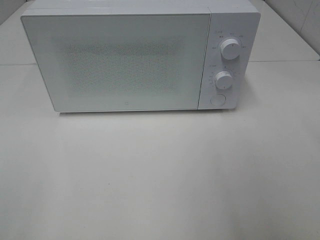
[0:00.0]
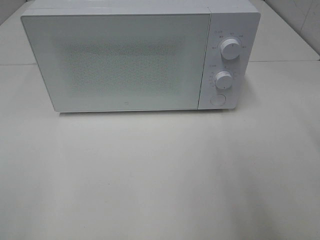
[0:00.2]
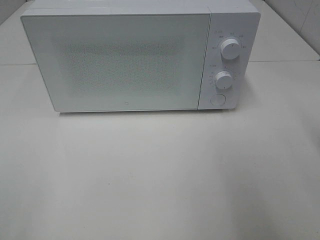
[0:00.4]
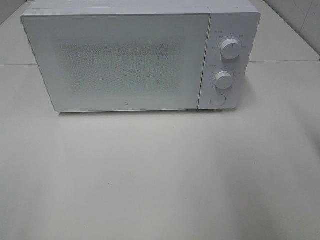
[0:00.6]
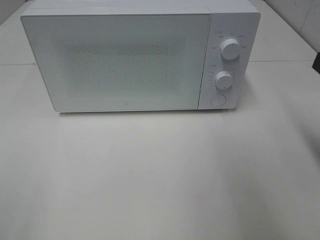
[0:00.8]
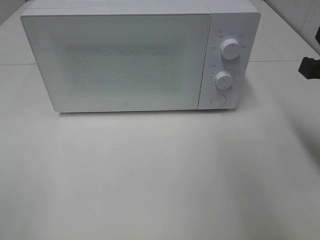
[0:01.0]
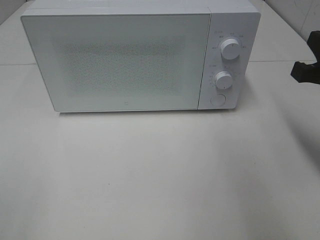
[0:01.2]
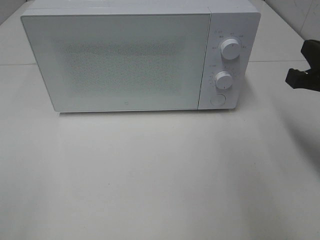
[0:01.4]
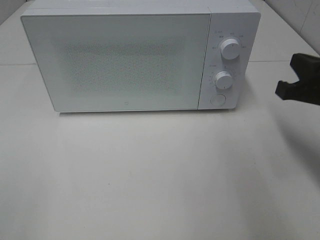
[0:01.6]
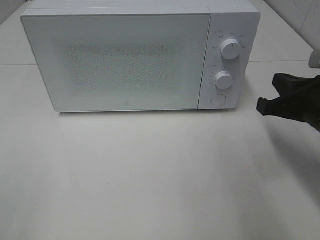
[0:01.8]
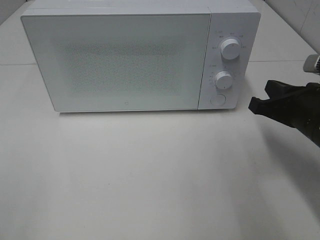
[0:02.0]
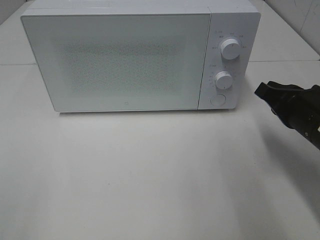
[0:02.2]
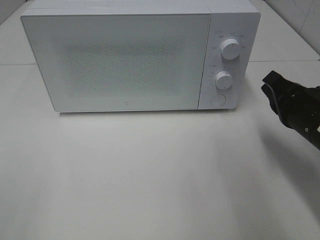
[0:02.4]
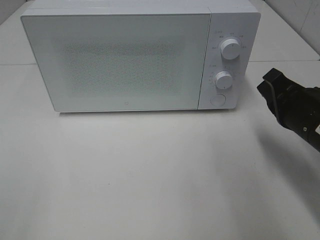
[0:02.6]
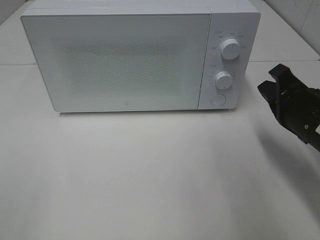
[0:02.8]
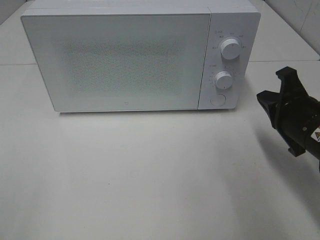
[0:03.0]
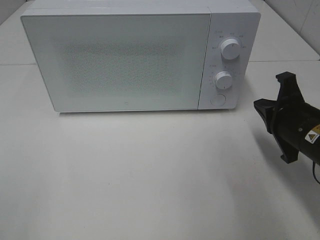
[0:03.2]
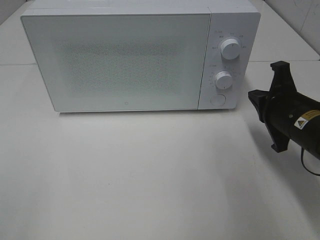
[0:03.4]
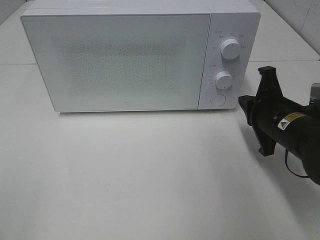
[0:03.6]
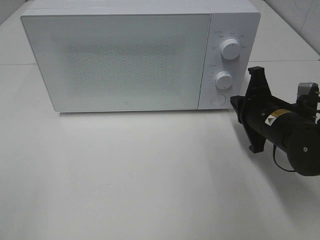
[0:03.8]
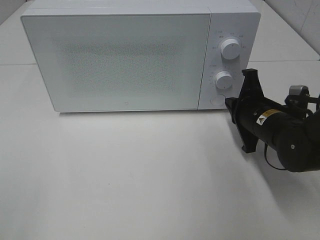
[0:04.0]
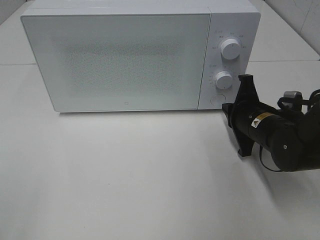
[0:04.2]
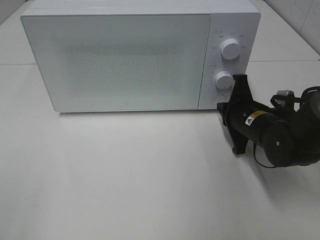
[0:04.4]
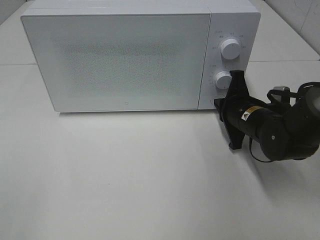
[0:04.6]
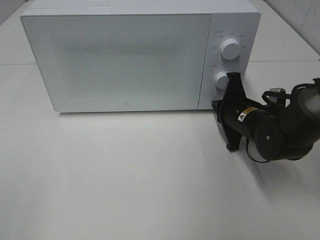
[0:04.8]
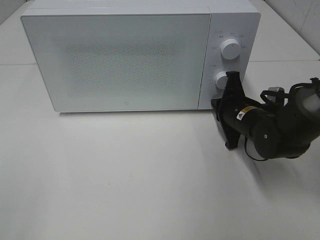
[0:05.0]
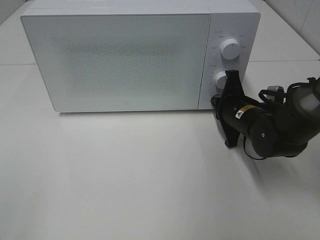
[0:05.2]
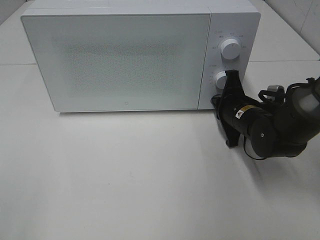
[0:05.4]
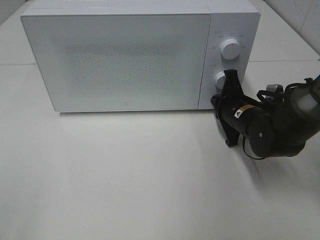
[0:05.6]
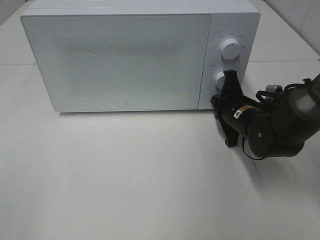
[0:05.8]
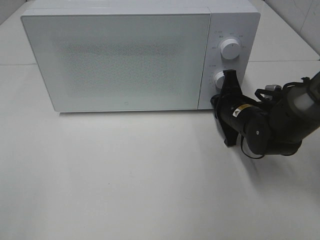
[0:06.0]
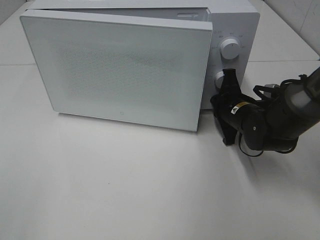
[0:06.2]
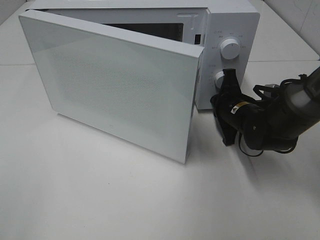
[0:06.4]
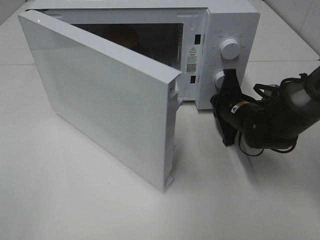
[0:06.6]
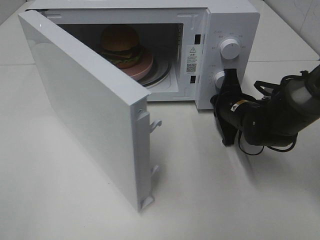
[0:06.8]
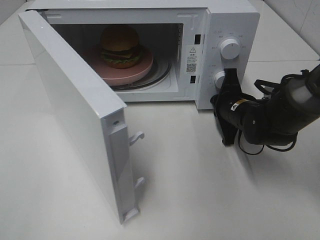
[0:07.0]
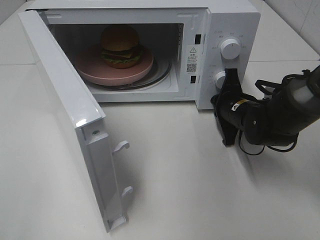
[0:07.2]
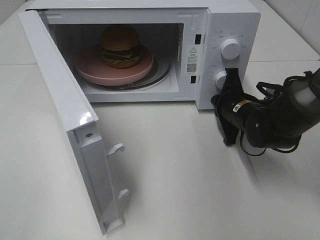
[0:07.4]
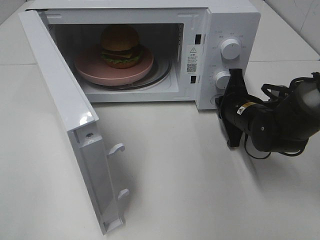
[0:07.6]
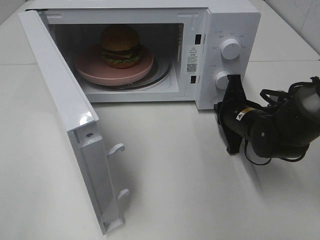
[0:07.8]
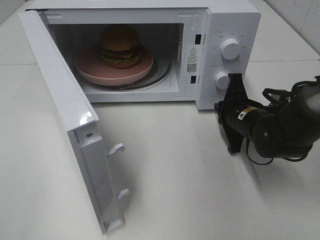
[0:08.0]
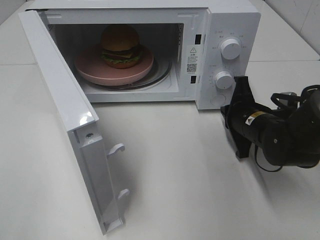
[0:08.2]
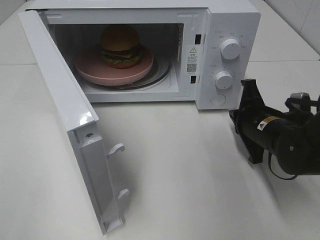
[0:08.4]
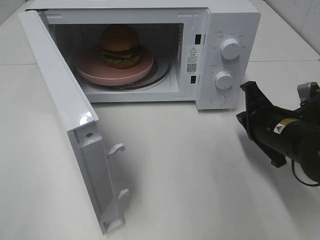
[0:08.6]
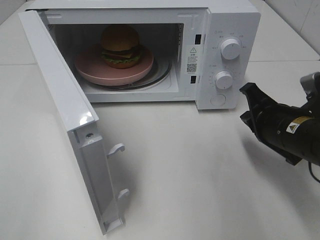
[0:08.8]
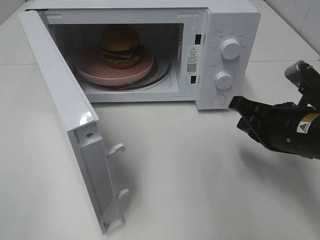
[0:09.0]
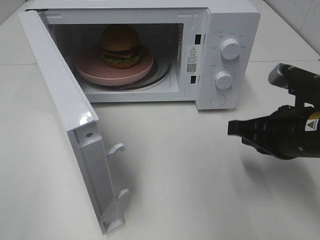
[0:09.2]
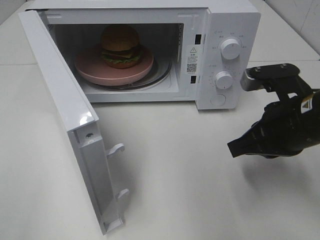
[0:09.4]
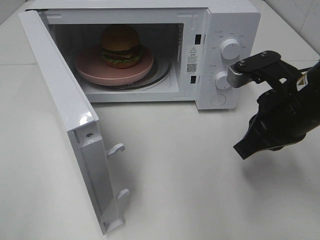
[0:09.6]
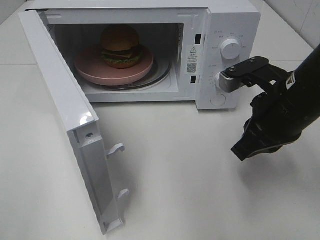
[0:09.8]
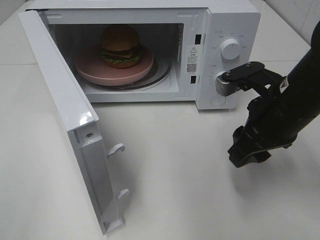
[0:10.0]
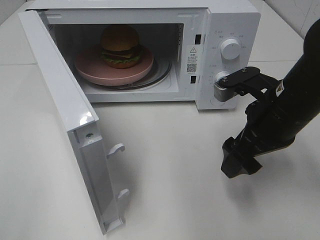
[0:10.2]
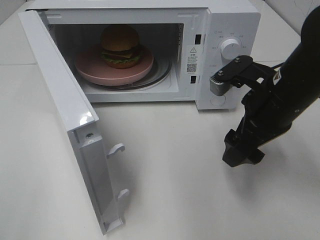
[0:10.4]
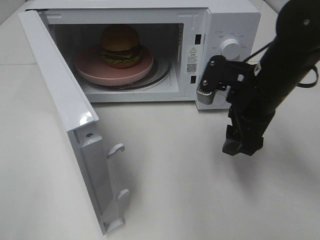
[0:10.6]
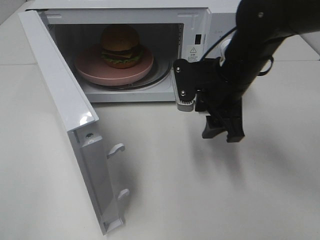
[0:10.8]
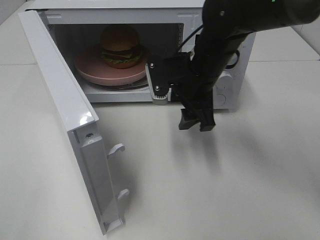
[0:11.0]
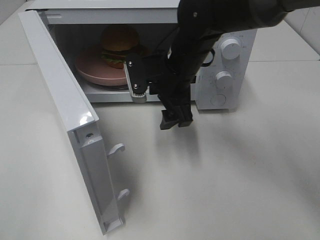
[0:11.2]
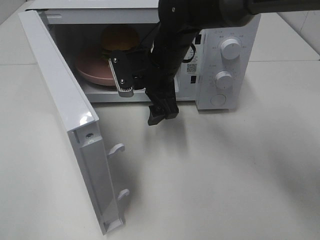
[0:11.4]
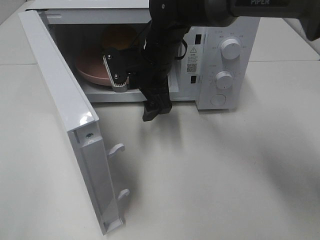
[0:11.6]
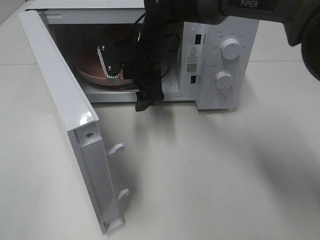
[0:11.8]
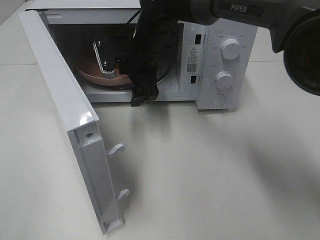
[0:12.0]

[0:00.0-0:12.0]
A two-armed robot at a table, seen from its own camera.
Task of the whole recording: Heat the burger.
Step, 0:00.0 to 0:07.6: Right hand: press the switch.
0:00.0 to 0:01.6: The right gripper moves forward and downward, roughly 20 cm, and closes its fingers.
0:01.6 to 0:03.0: The right gripper changes place by roughly 5 cm.
0:03.0 to 0:04.4: The right gripper is displaced forward, downward and to the left by roughly 10 cm.
0:04.4 to 0:06.0: There are only small adjustments of the grippers.
0:07.6 to 0:09.0: The right gripper heads backward and upward, covering about 15 cm.
0:09.0 to 0:10.4: The right gripper ends up about 5 cm from where it was, and opens.
0:10.4 to 0:12.0: The right gripper goes roughly 25 cm to the left and forward.

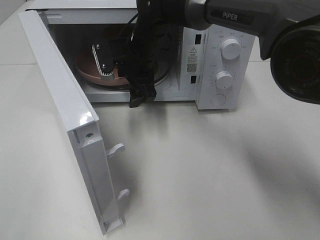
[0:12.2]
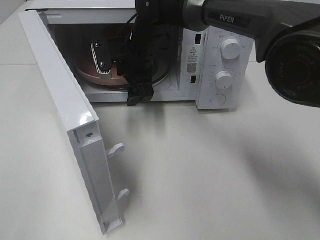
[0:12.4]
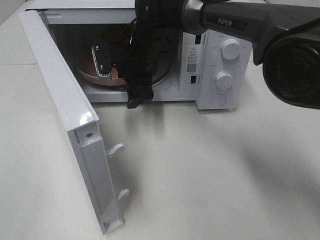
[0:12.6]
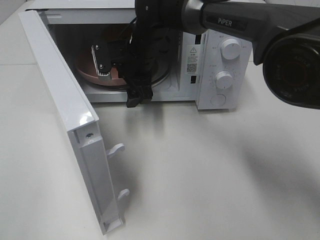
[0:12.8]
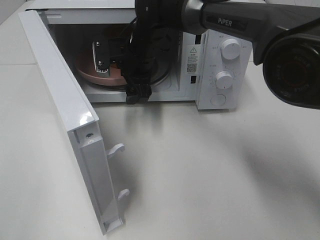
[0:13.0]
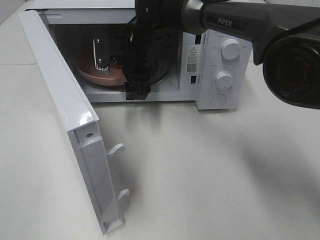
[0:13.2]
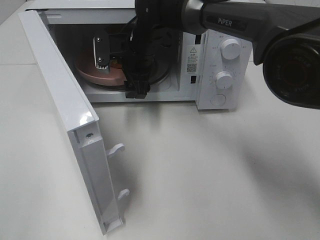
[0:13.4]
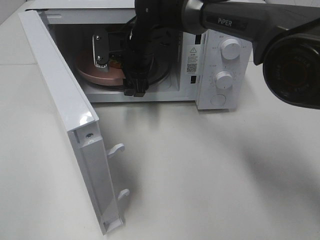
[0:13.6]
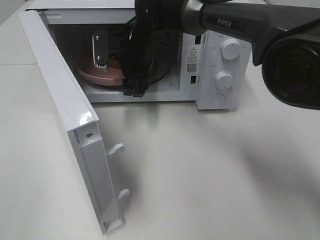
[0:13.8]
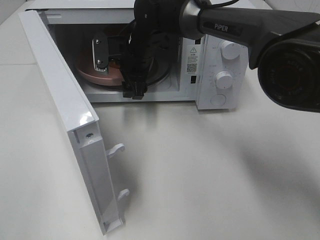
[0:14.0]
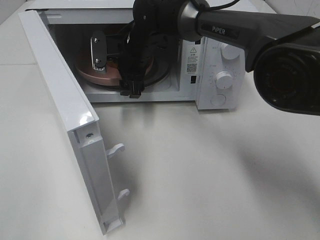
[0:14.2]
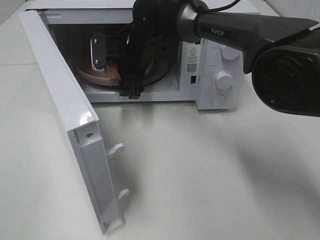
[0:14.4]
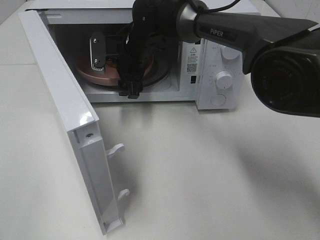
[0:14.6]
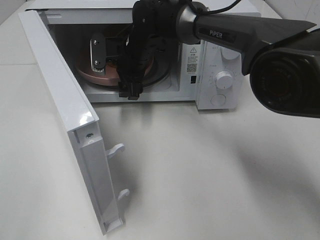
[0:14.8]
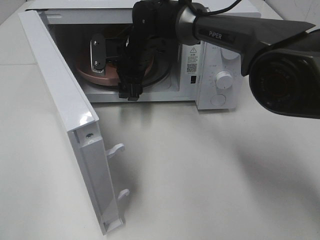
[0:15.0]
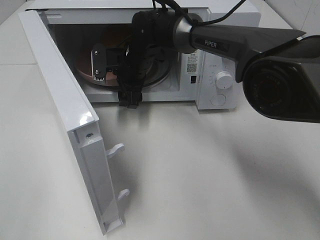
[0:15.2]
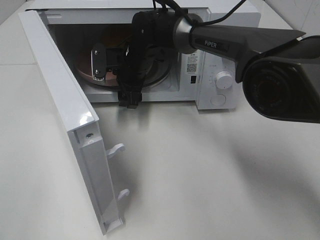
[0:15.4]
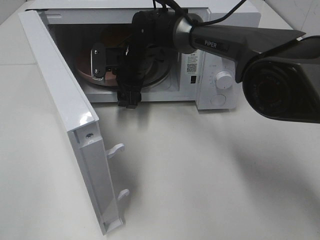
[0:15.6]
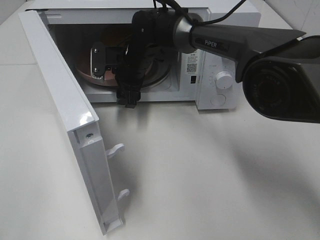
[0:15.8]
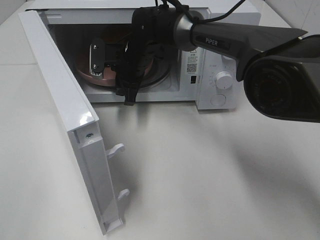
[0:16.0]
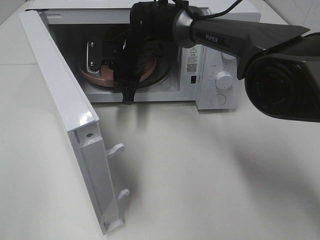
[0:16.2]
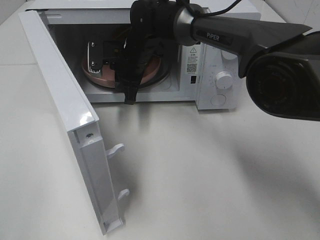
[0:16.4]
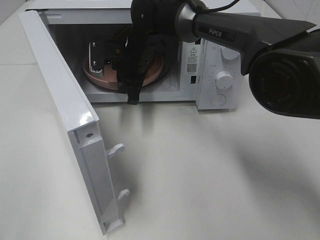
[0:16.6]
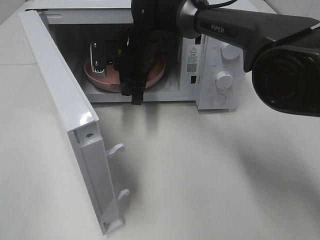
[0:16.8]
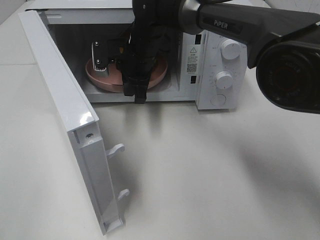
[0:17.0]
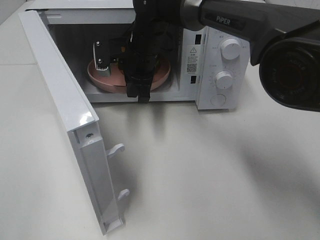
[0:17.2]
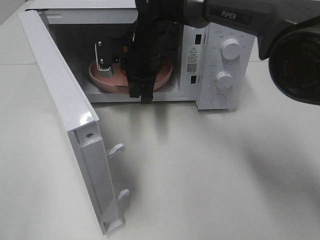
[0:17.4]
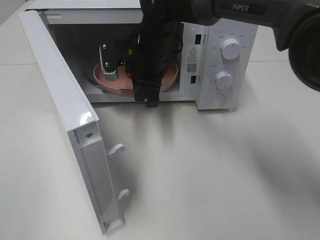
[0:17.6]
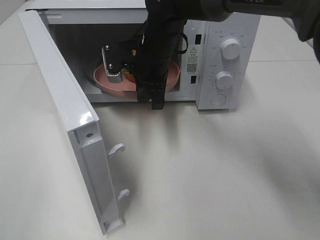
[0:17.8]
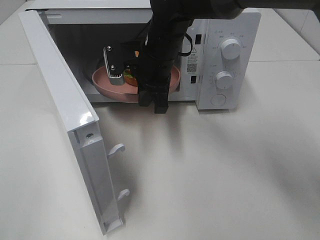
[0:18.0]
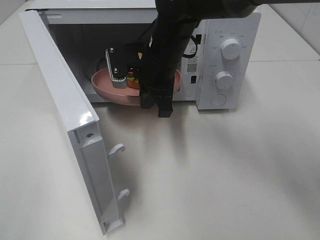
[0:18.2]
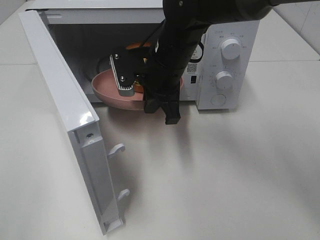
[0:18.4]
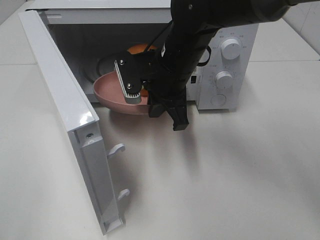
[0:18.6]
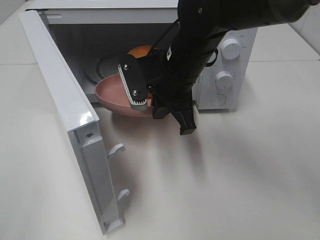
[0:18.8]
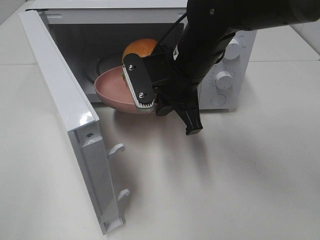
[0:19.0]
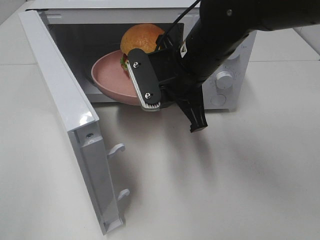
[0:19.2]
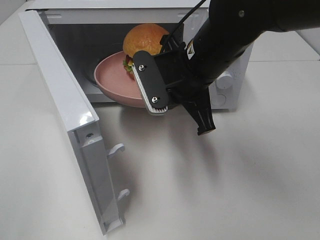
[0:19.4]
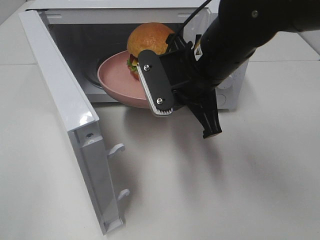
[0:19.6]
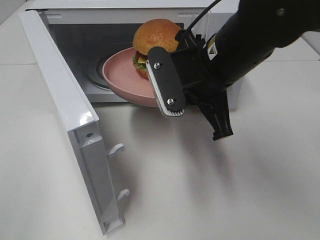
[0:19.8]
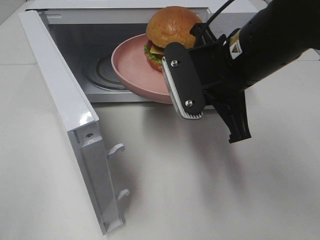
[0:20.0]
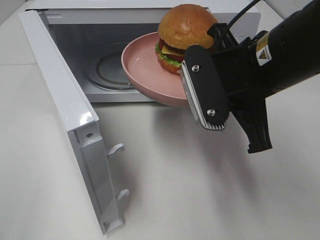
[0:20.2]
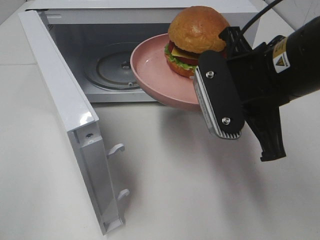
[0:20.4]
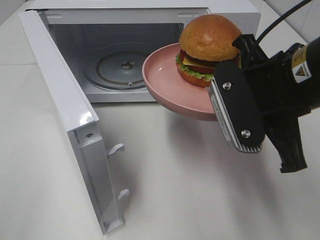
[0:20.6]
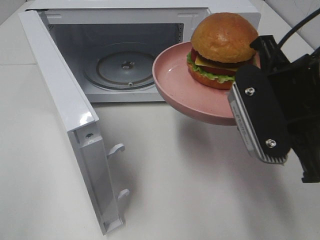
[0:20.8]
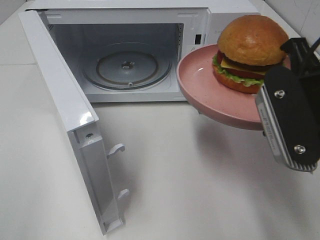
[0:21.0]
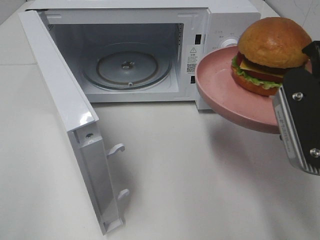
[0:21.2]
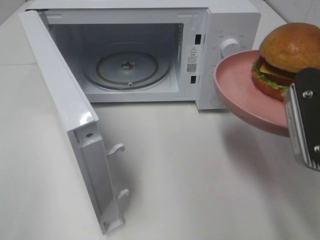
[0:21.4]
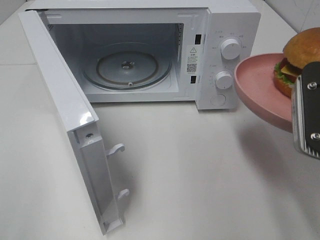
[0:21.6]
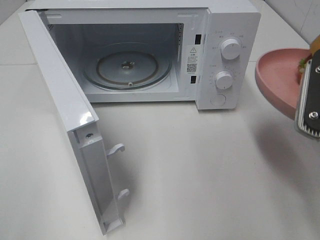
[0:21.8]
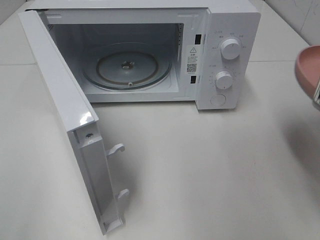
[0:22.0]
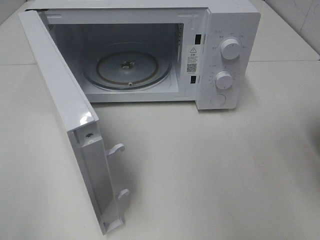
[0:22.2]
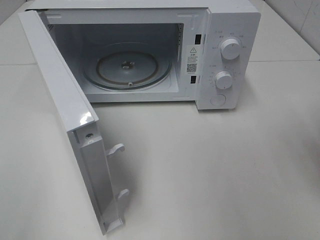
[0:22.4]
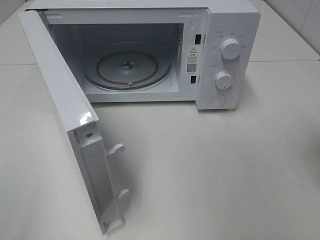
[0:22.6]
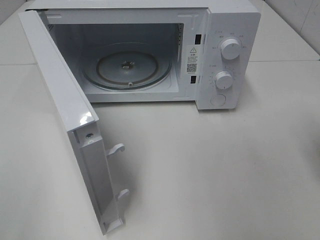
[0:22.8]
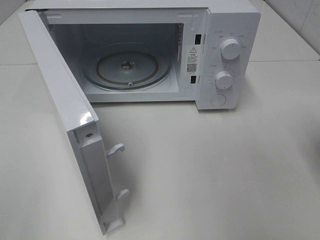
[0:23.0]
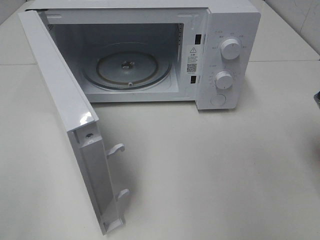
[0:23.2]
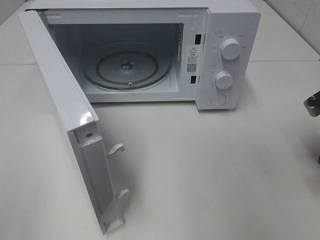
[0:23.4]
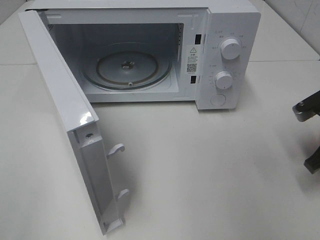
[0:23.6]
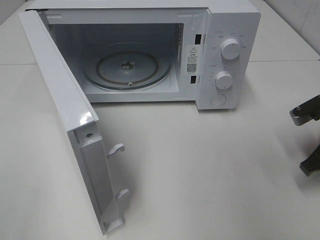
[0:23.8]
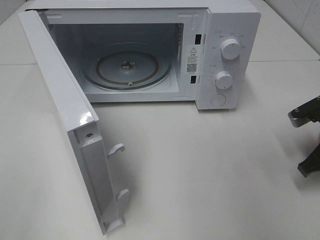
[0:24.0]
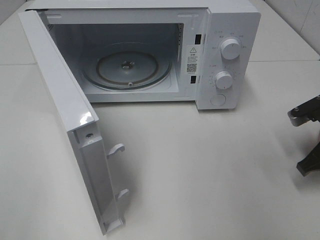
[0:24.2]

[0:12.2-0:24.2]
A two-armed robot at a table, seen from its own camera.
Task of the whole recording: Heat the burger.
Step, 0:12.2 to 0:16.2: Right hand: grab the plate with the hamburger.
0:12.2 to 0:15.2: The grippers stay close to where they were, moving slightly.
0:15.2 to 0:16.6: The right gripper closes.
0:16.6 to 0:18.2: The right gripper heads backward and to the right, covering about 10 cm.
0:18.2 to 0:19.8: The right gripper goes about 10 cm backward and to the right.
0:19.8 to 0:21.2: The right gripper moves to the right and backward, about 15 cm.
0:21.2 to 0:22.6: The right gripper is displaced to the right by approximately 10 cm.
0:22.6 to 0:24.2: The right gripper travels downward and forward by approximately 15 cm.
